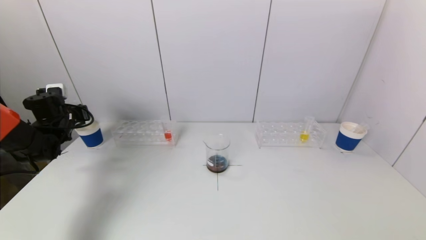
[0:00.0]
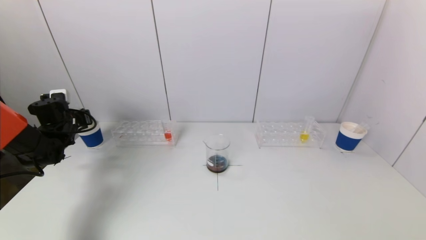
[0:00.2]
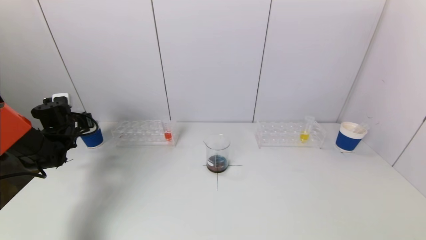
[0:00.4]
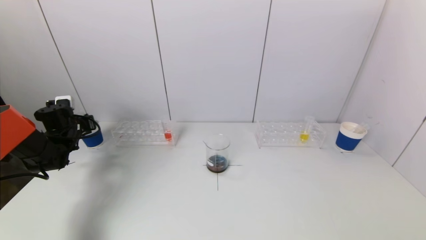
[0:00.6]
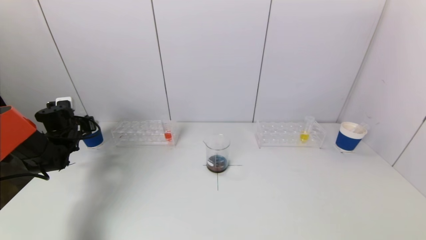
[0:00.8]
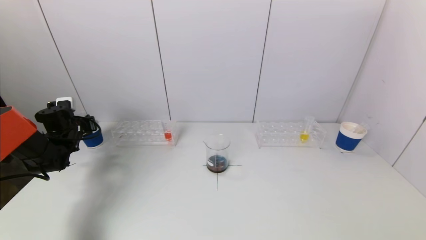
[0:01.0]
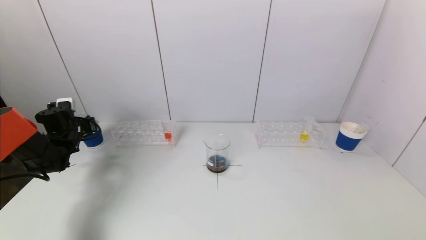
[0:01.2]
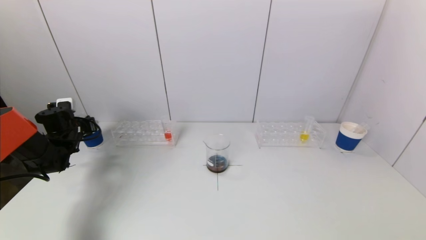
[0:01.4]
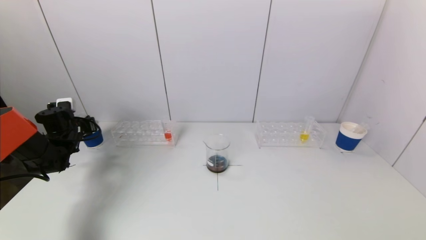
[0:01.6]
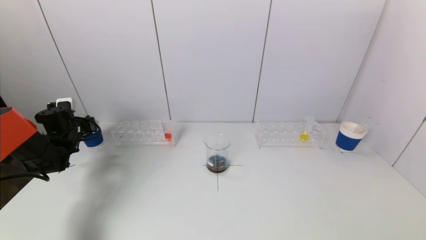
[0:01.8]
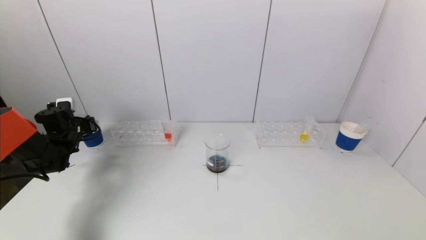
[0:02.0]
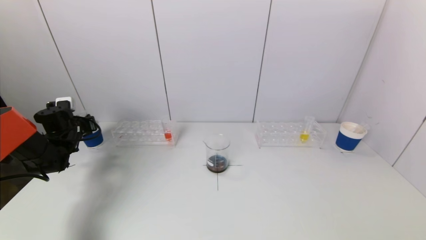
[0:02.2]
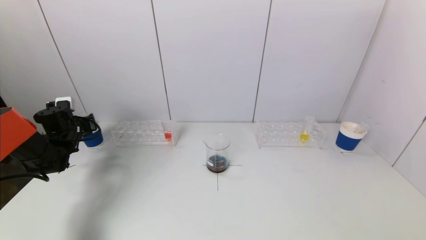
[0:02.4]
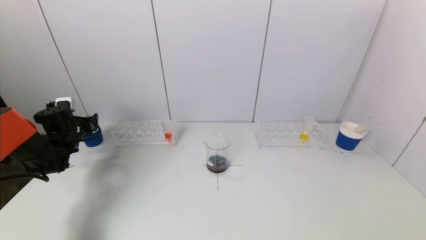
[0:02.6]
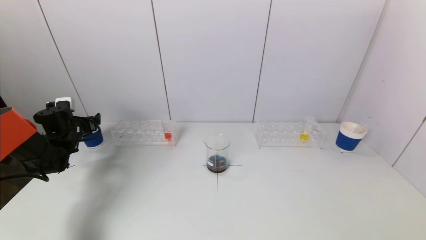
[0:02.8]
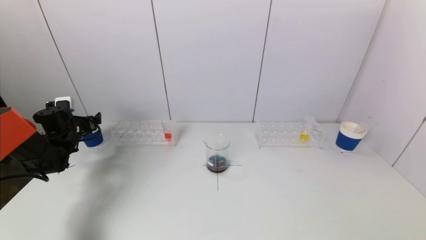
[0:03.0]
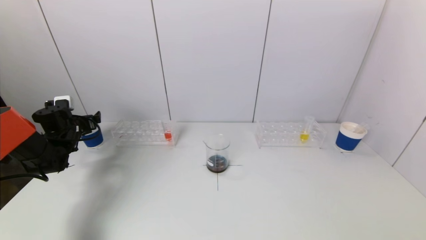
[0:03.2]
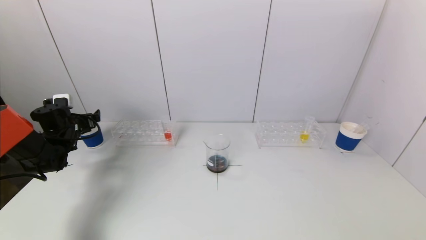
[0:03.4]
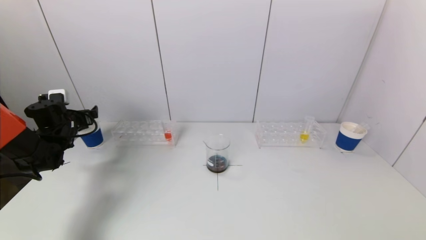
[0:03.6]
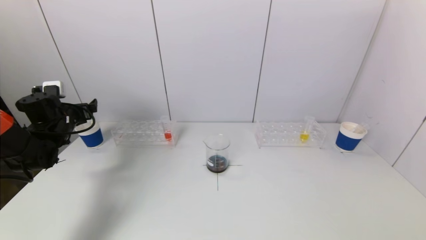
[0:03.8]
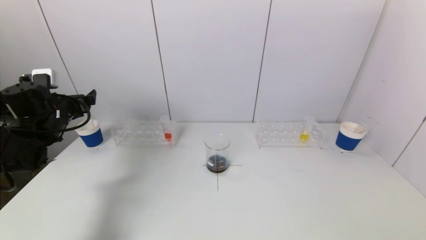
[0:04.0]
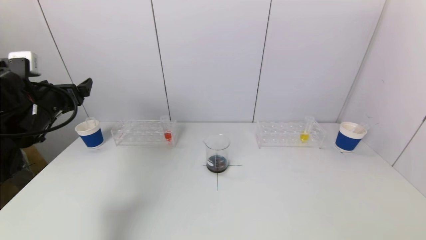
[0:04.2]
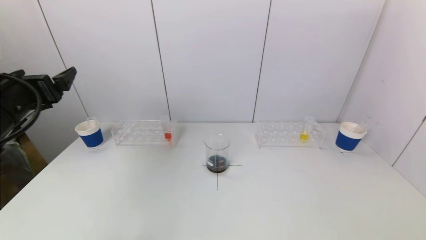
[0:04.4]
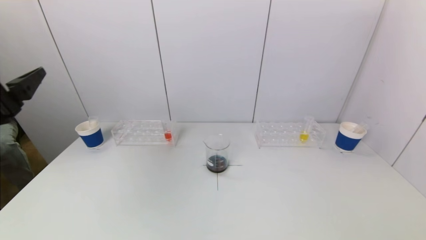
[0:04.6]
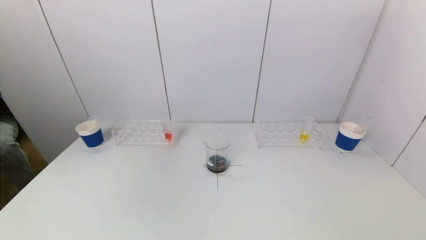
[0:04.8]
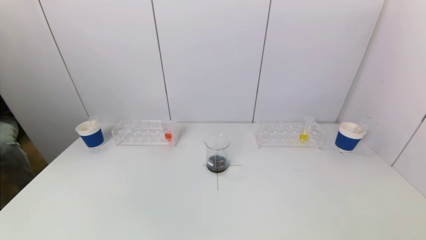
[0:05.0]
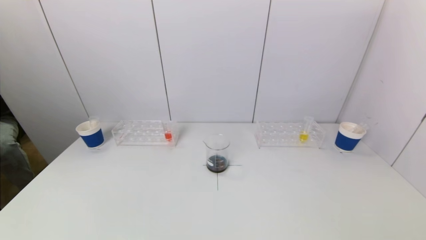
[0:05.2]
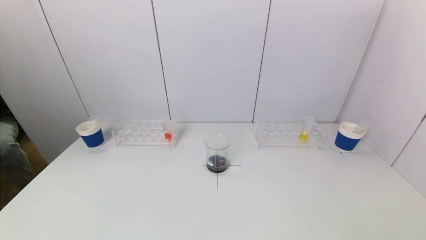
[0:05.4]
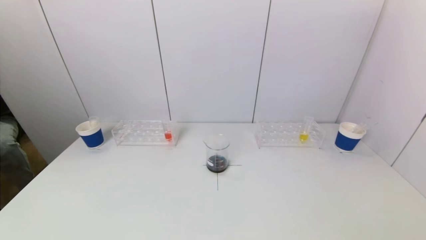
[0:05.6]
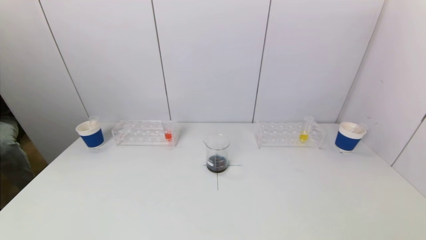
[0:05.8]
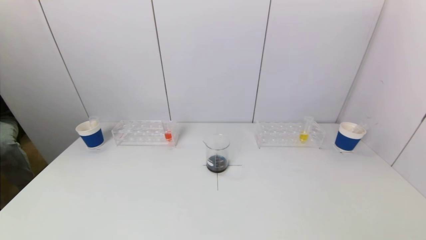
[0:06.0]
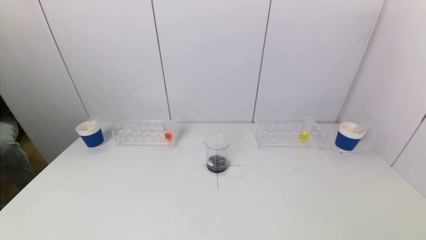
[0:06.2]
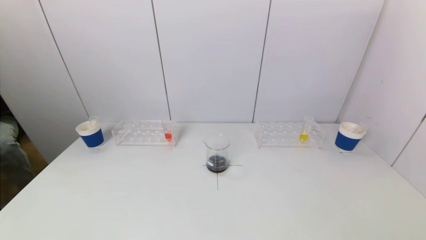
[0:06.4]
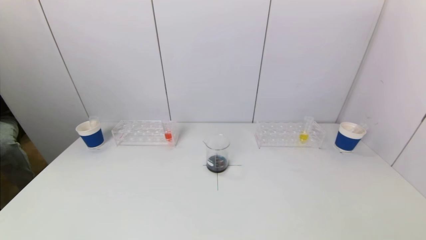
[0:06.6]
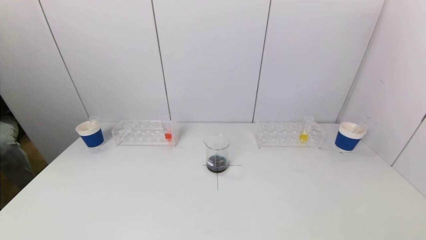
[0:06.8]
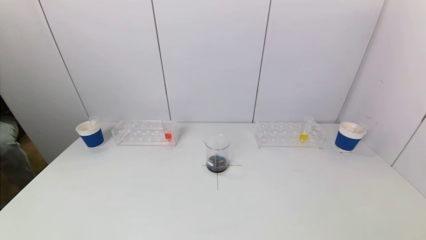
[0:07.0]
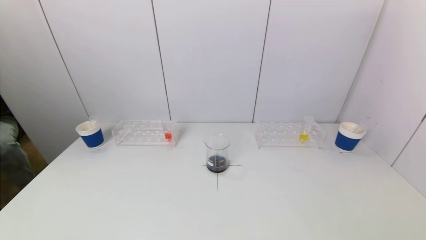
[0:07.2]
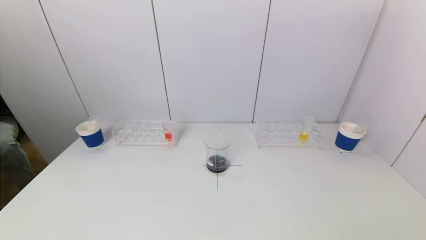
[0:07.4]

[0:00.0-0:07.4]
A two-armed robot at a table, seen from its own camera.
Task of the whole recording: pick up a test tube with pigment on left test tube rack and a test tube with pigment on right test tube rack by grippers and pour them into the beaker.
Step, 0:00.0 to 0:02.8: Place the test tube into the paper cup with the left gripper.
0:00.0 to 0:01.4: The grippers move only a little.
0:03.0 to 0:04.4: The left gripper travels backward, upward and to the right by approximately 25 cm.
0:04.4 to 0:06.0: The left gripper moves backward and downward, about 30 cm.

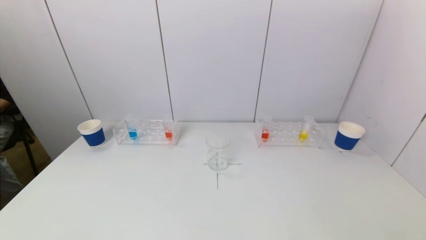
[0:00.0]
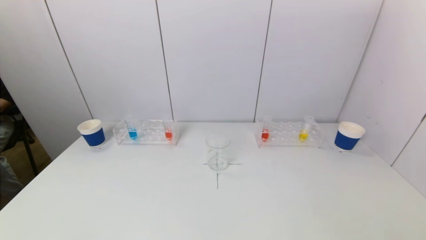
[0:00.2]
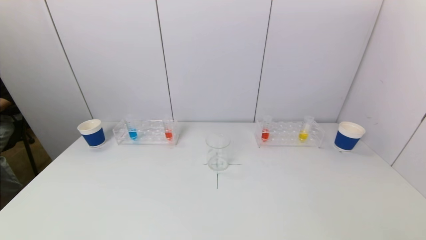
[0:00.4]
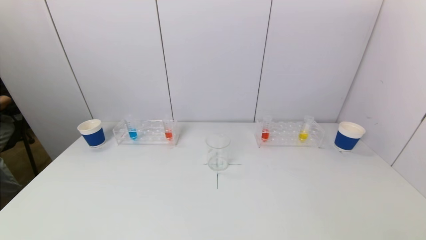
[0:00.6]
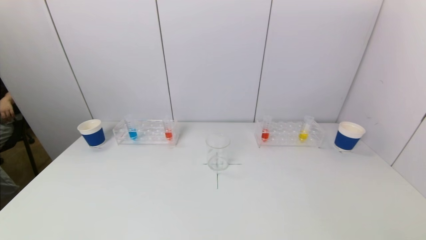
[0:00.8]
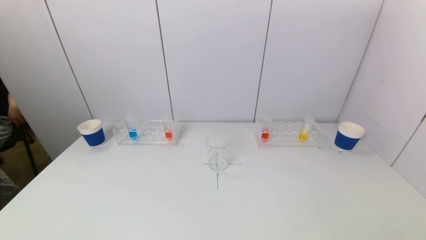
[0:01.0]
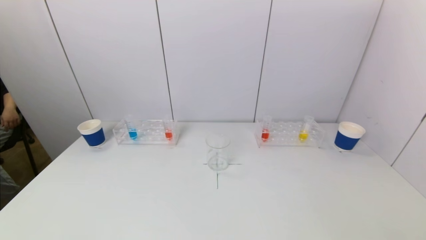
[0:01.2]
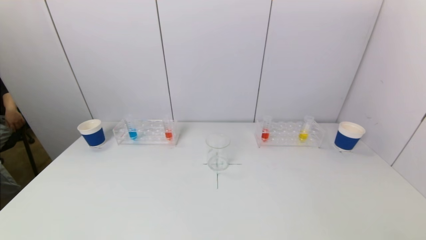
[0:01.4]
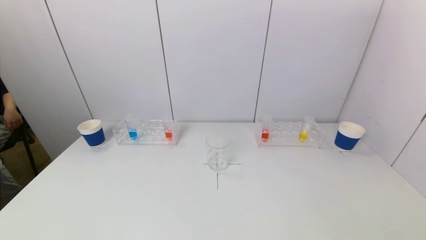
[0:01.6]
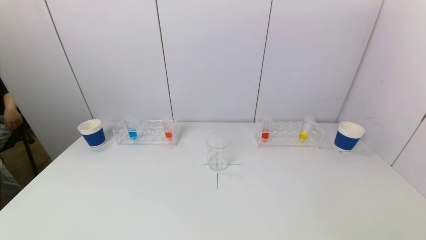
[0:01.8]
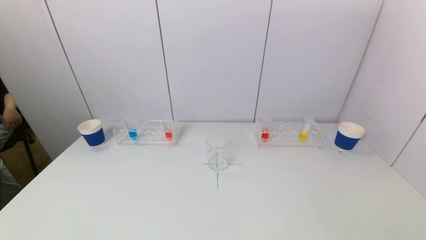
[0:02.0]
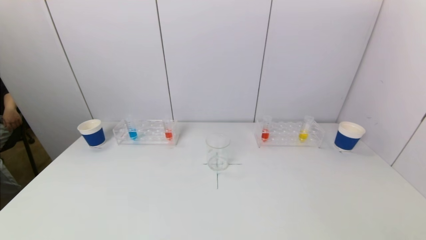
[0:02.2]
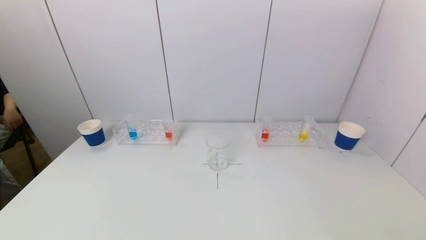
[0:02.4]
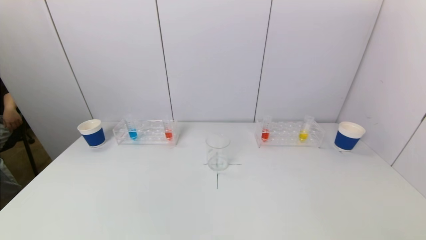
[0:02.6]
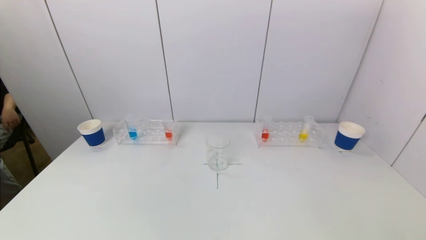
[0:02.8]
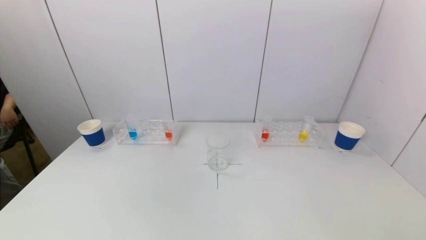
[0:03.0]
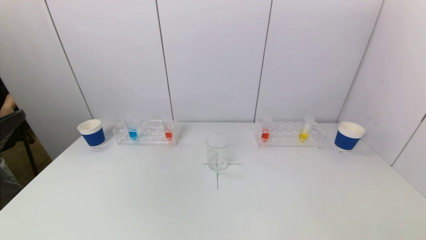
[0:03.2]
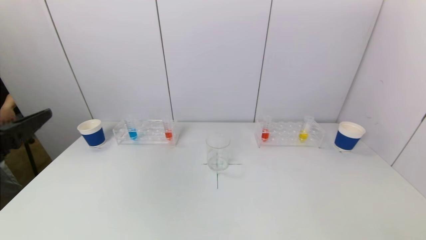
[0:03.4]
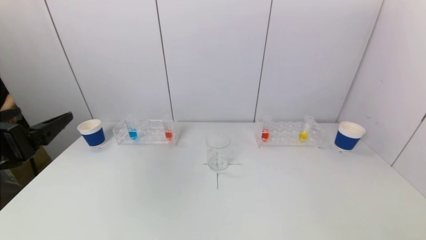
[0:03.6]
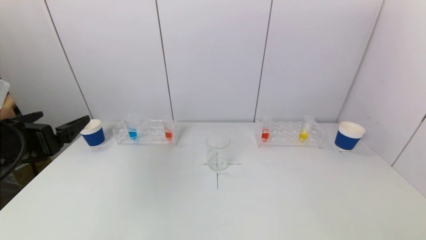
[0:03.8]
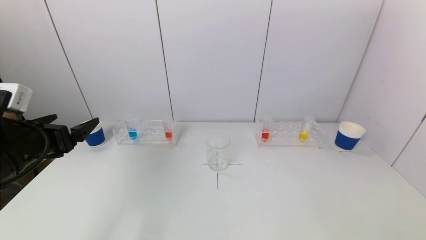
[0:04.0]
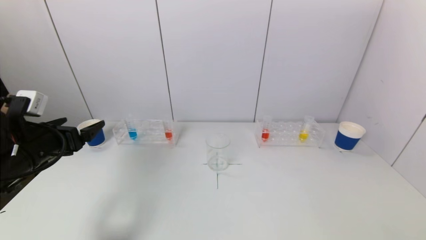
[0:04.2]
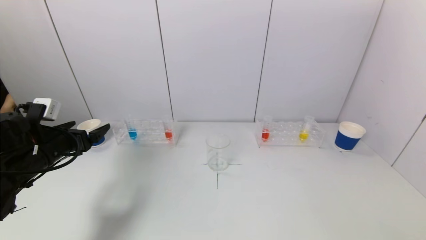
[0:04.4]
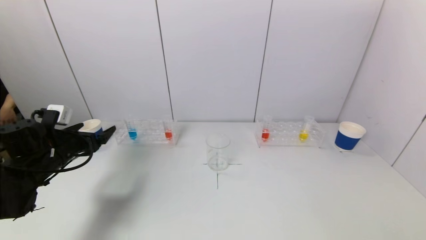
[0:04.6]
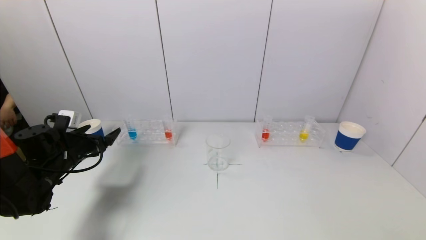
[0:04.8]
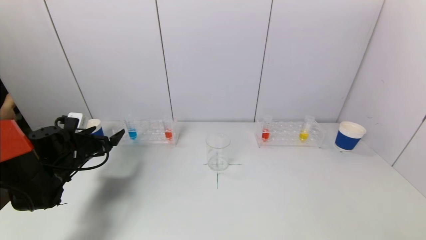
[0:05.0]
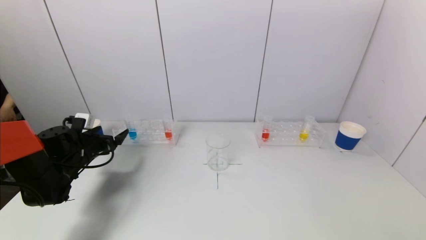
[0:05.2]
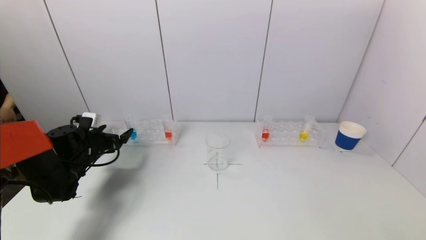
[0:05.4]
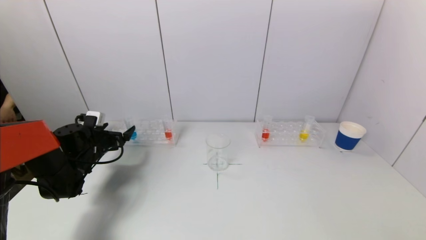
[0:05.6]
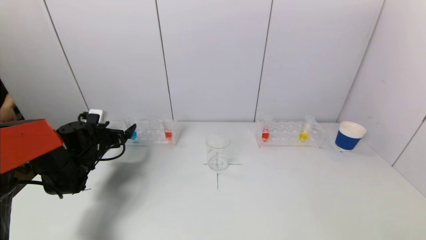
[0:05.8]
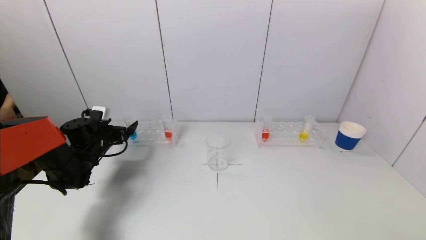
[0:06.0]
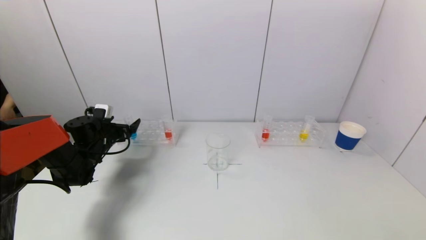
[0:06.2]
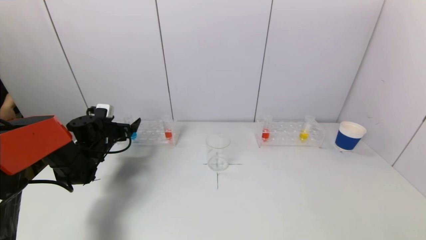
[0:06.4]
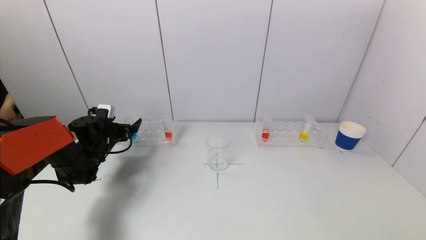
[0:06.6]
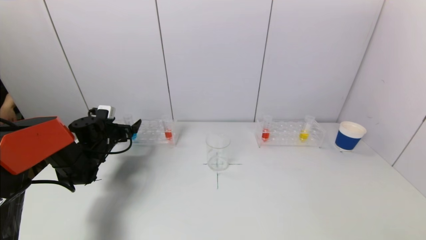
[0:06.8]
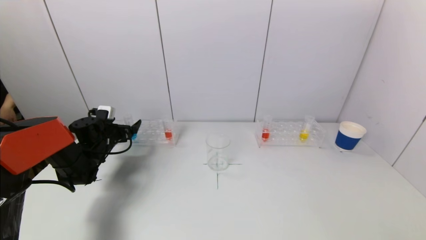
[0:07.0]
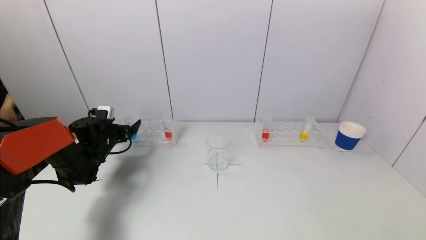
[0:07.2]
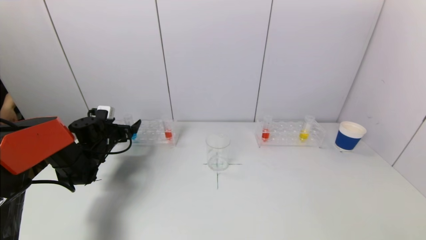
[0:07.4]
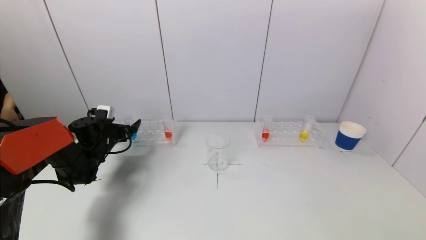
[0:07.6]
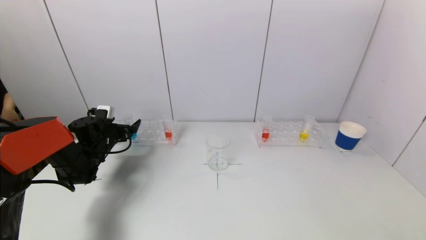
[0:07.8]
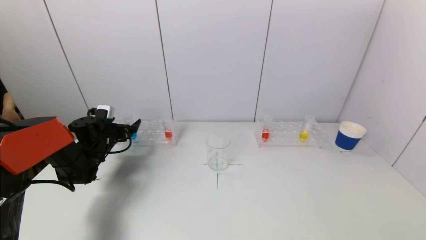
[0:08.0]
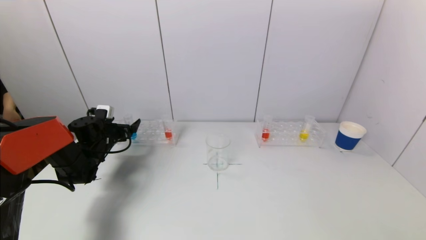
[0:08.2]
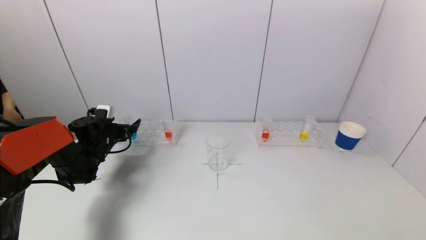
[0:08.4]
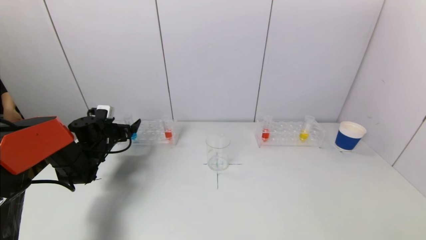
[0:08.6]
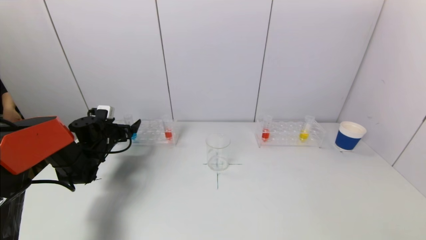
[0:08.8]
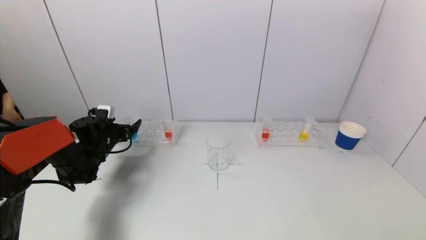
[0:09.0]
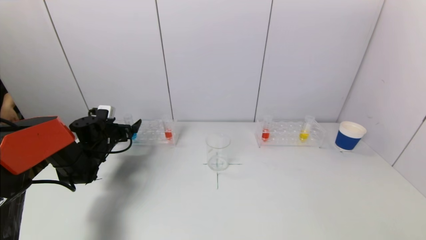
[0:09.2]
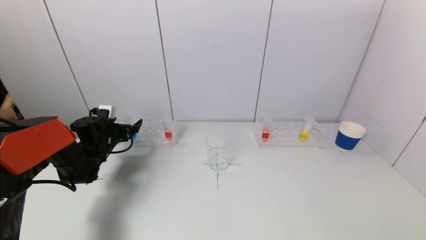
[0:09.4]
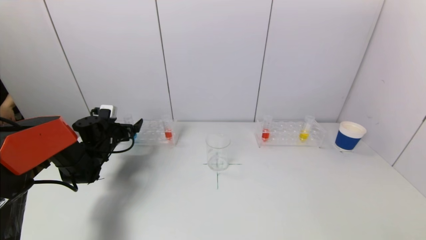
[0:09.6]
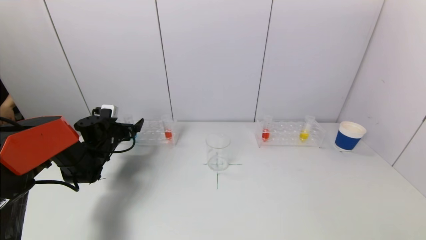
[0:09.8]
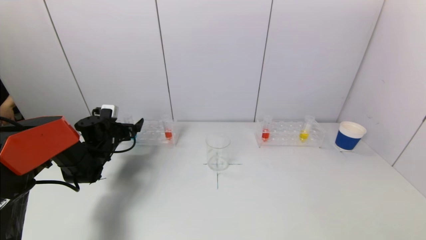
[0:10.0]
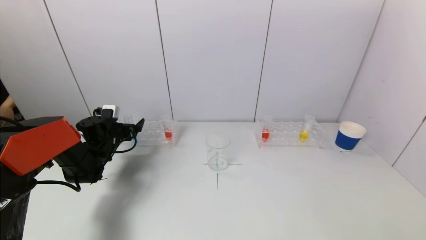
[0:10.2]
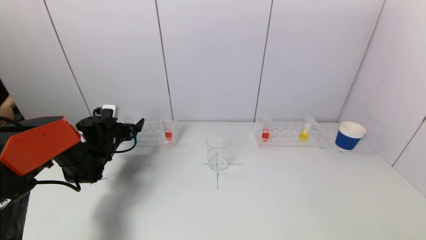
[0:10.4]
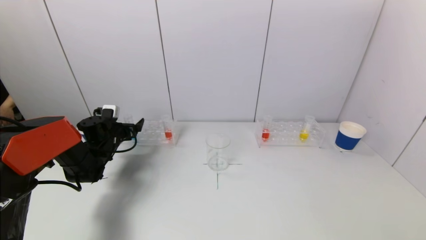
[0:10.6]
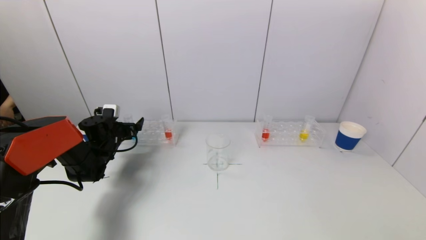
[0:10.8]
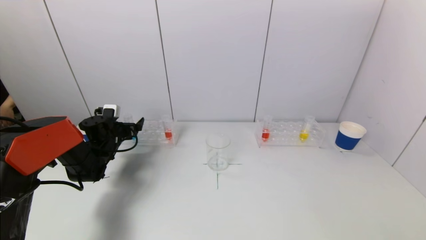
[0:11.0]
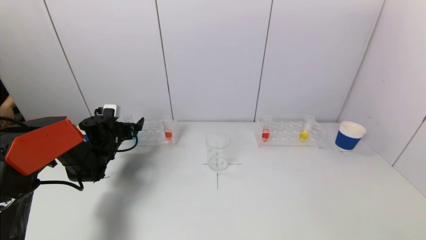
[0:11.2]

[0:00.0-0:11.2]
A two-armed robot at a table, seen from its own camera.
Task of the whole recording: pick up a test tube with pigment on left test tube rack and a test tube with pigment on right test tube rack by grippers and pour them into the beaker.
0:00.0 to 0:01.6: The two grippers keep their place.
0:03.2 to 0:04.8: The left gripper heads forward and downward, covering about 30 cm.
0:04.8 to 0:06.4: The left gripper moves forward, approximately 10 cm.
0:06.4 to 0:09.6: Neither gripper changes place.
0:09.6 to 0:11.2: Neither gripper changes place.
